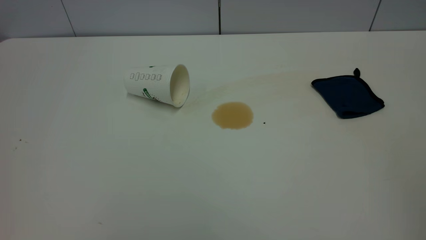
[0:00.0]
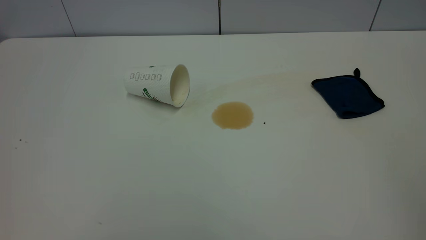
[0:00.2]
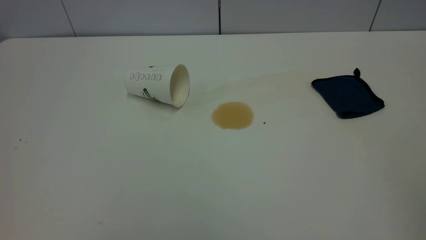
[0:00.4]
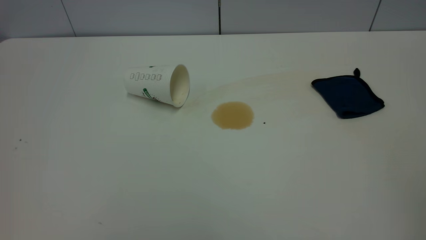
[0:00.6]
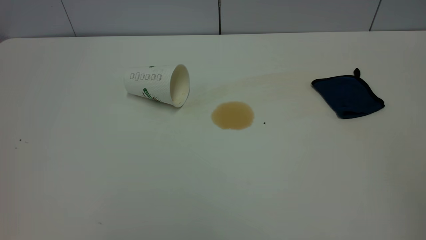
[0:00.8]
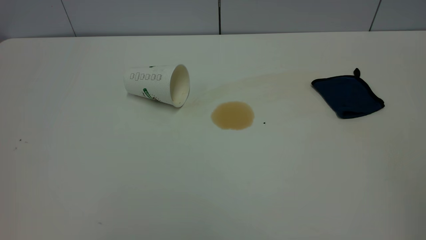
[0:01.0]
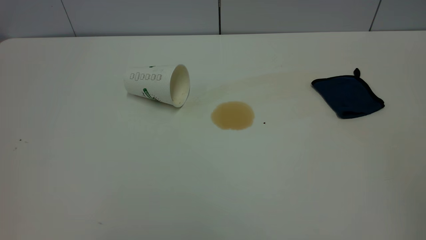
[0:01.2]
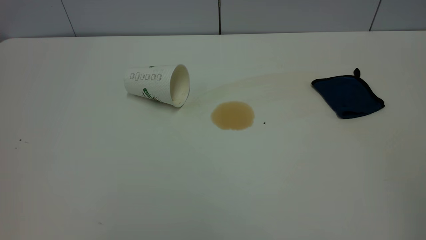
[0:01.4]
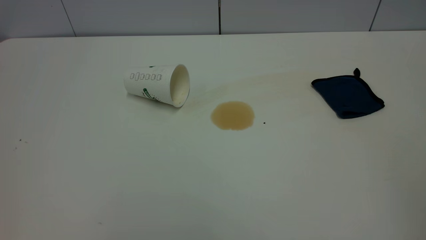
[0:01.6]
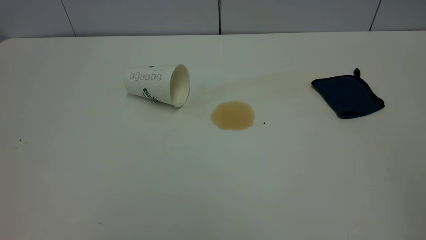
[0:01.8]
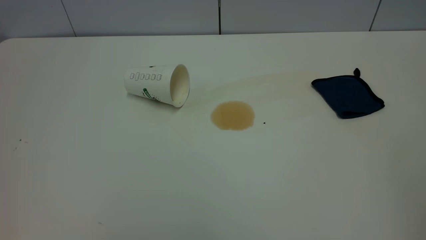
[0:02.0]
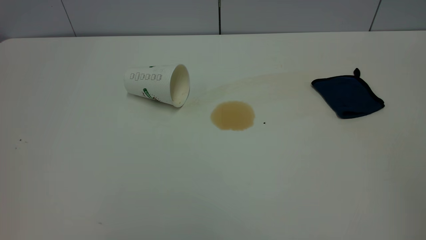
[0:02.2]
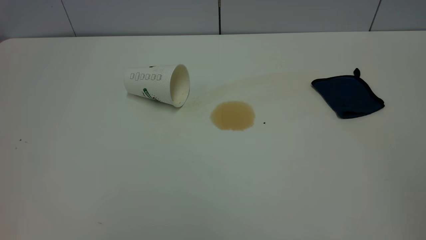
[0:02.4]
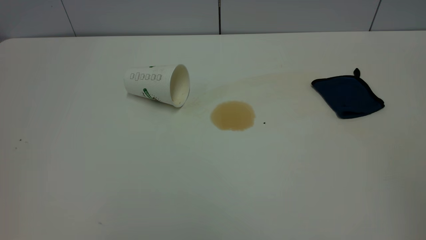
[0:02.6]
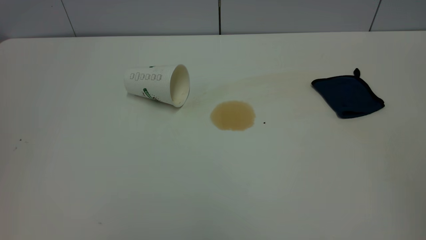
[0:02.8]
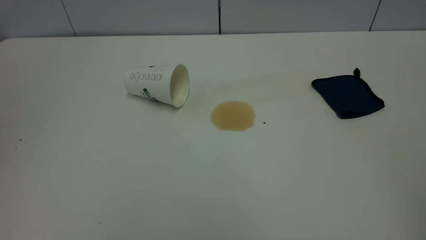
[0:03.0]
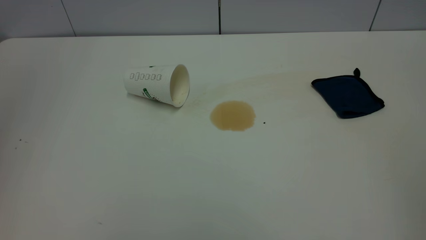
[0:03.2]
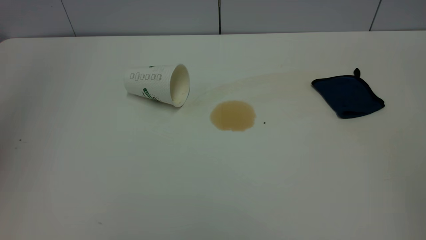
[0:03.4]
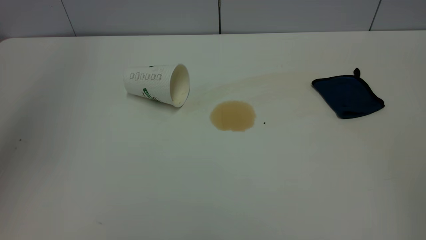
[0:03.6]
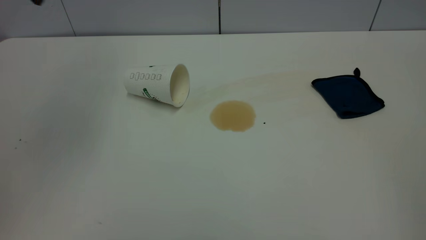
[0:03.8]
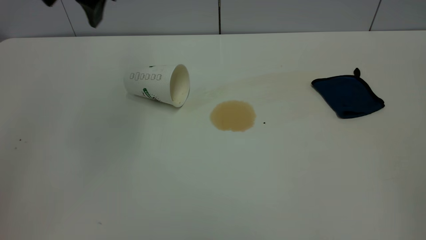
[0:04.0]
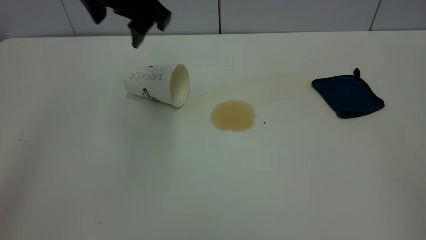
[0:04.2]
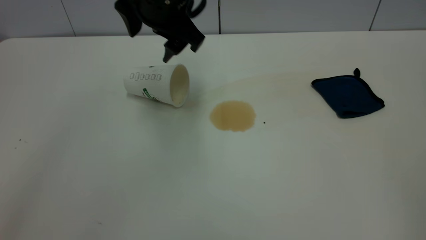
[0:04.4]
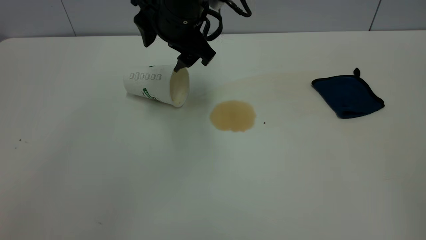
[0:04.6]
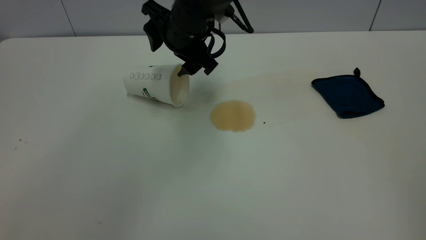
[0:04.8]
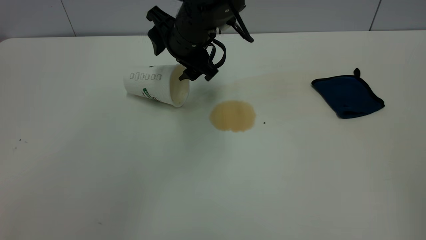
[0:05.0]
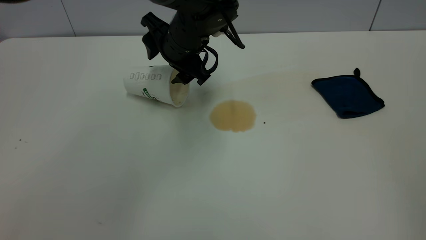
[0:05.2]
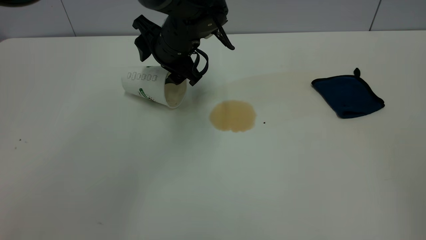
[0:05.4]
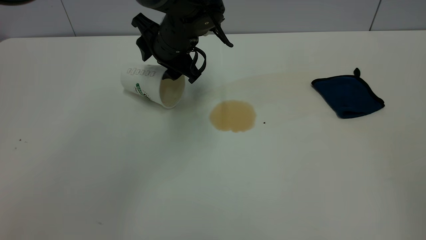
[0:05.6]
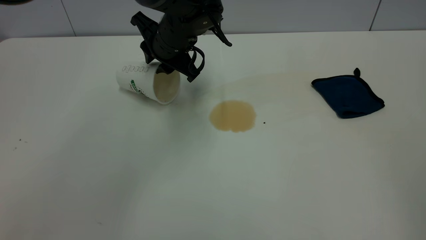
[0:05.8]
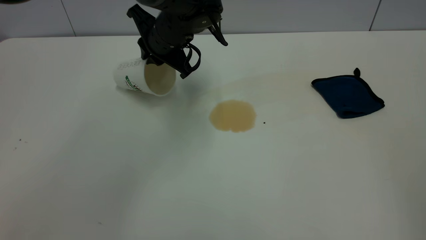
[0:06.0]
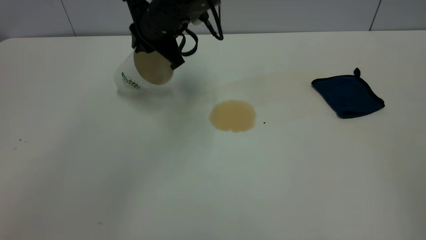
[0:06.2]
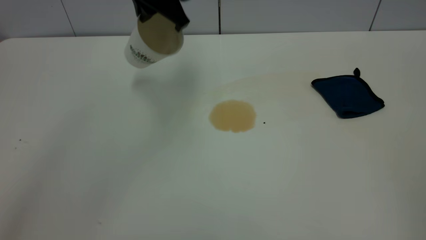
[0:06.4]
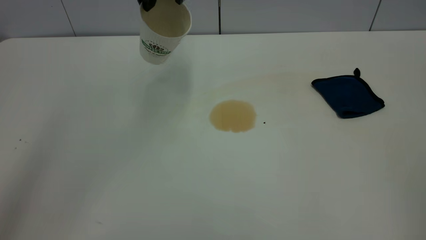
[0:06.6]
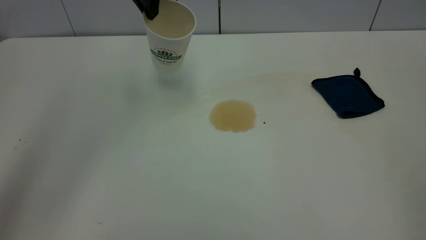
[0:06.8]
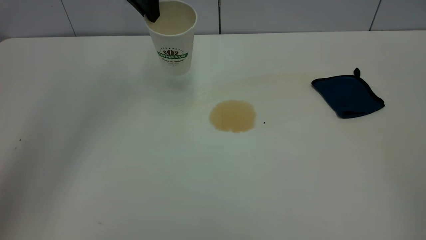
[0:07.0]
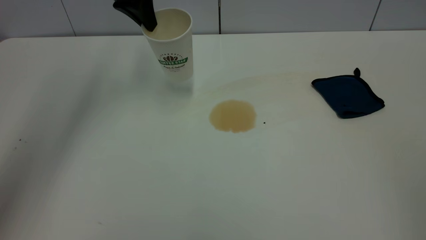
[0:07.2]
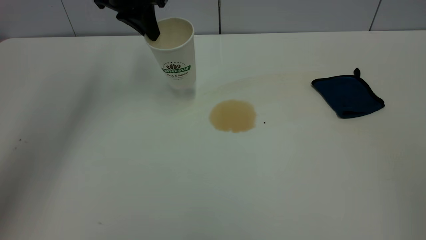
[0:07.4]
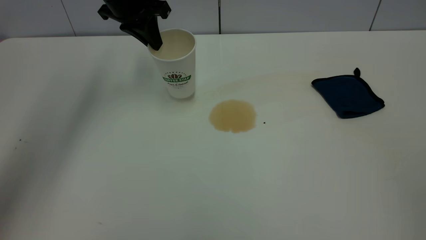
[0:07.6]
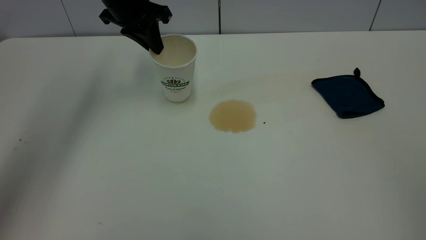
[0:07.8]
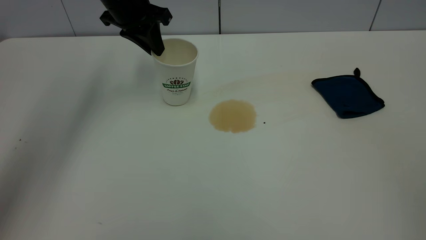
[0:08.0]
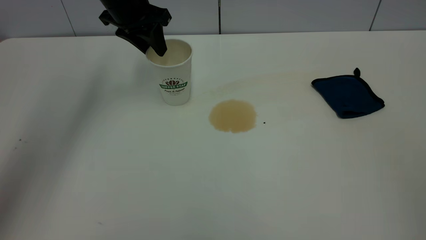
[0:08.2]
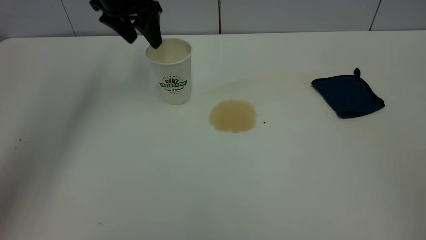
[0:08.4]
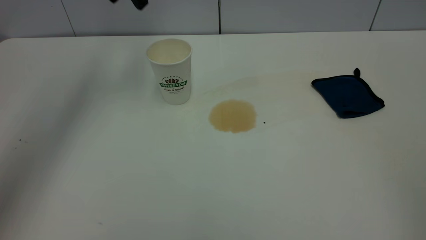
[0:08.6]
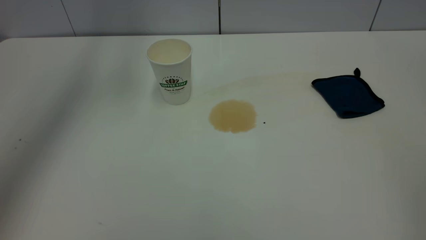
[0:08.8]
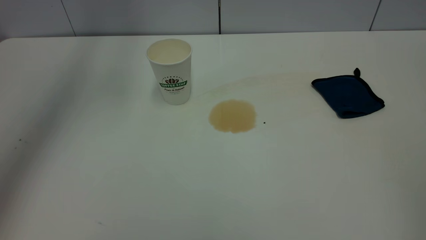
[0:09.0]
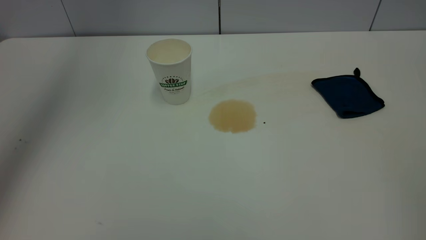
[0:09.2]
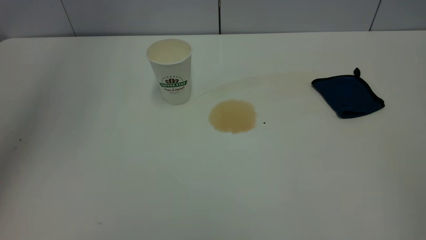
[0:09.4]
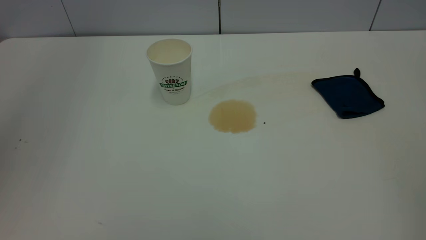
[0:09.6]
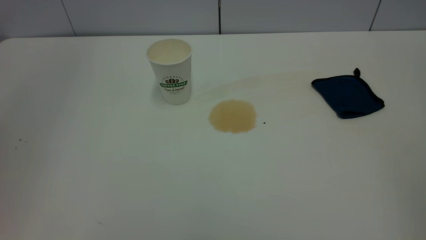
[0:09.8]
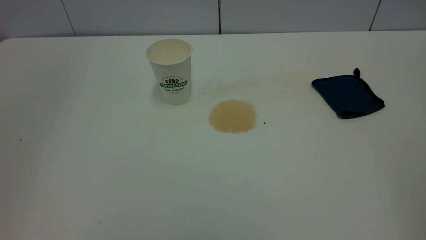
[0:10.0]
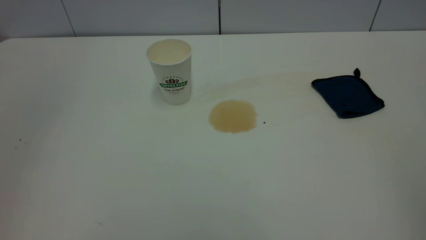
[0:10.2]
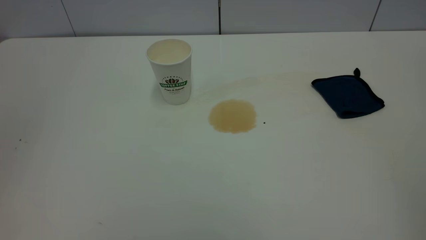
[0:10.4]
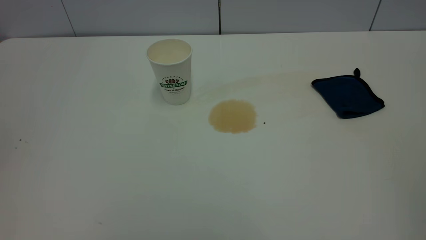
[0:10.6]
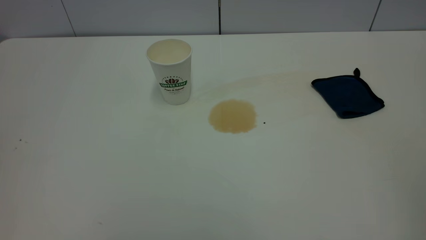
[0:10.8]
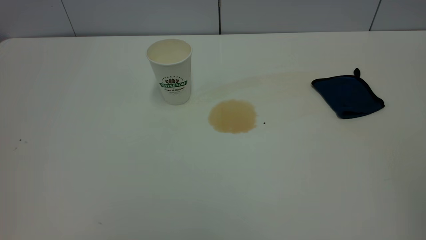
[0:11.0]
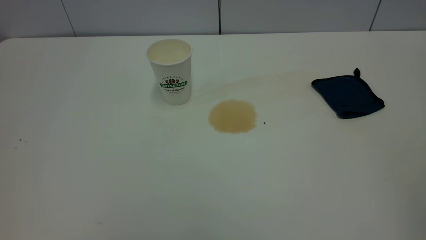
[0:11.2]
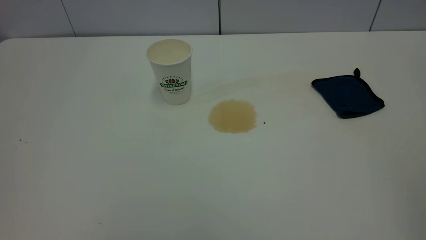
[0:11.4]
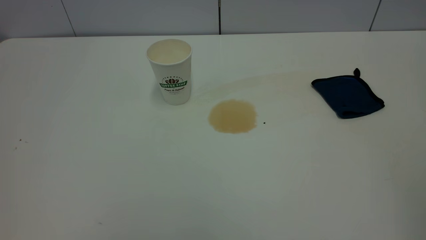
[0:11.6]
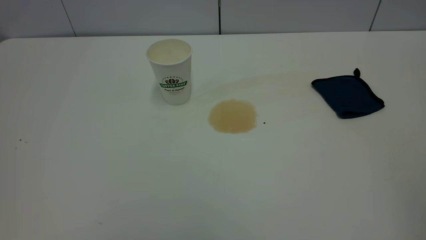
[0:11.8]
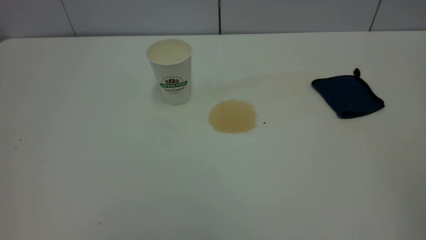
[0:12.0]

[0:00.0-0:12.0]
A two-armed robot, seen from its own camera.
Task of the whole recording: the left gripper pick up the fallen cup and place it upright, the right gripper grasp the blue rag and wipe the tea stain on the table, the right gripper put the blue rag back in its original position.
Step, 0:00.0 to 0:08.2: Stand the paper cup upright.
0:00.0 to 0:01.6: Both grippers stay put.
0:03.0 to 0:04.4: The left gripper shifts approximately 40 cm to the right, forward and downward.
0:04.4 to 0:06.0: The left gripper shifts roughly 10 cm downward and forward, and closes.
0:06.0 to 0:07.6: The left gripper heads to the left and upward, covering approximately 10 cm.
0:07.6 to 0:09.0: The left gripper travels upward by some 25 cm, and opens.
0:09.0 to 0:10.4: The left gripper shifts about 30 cm backward.

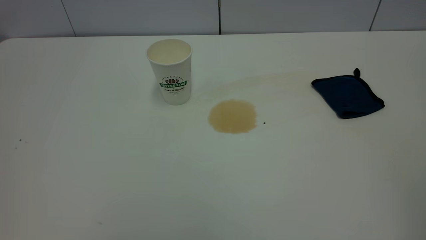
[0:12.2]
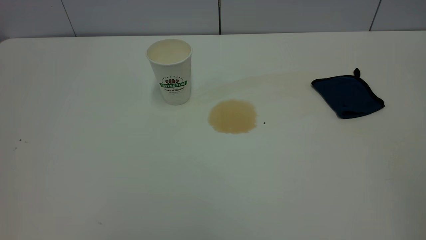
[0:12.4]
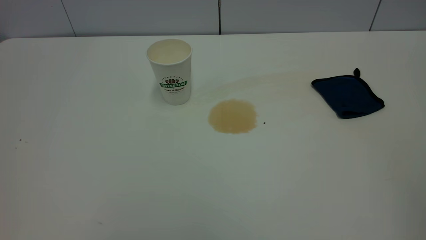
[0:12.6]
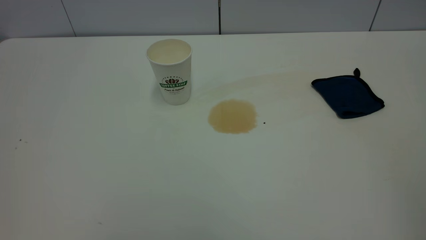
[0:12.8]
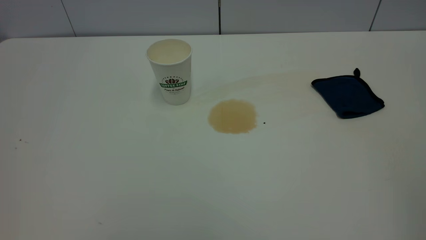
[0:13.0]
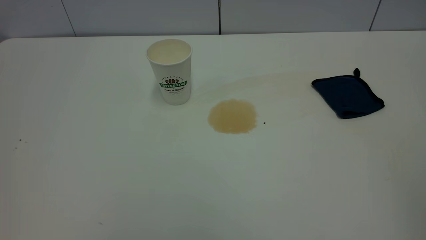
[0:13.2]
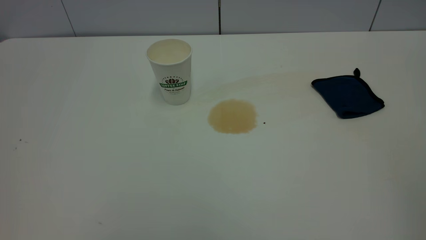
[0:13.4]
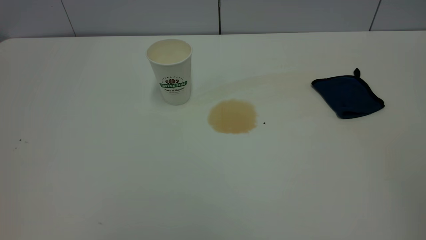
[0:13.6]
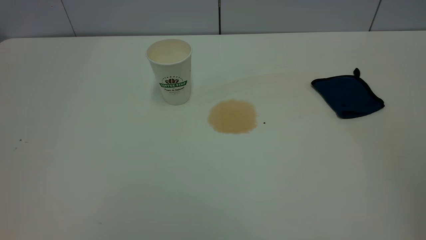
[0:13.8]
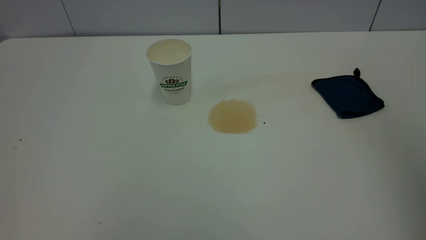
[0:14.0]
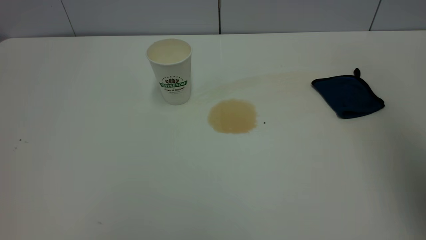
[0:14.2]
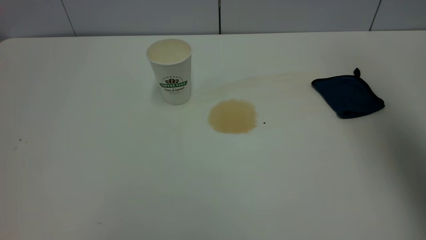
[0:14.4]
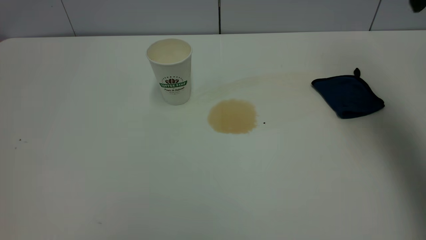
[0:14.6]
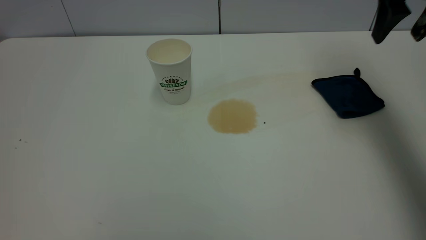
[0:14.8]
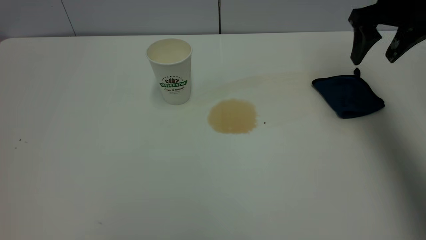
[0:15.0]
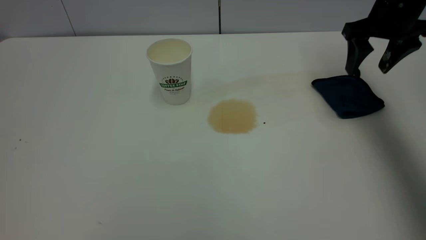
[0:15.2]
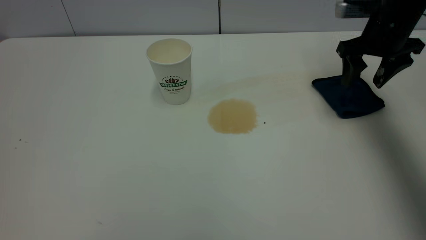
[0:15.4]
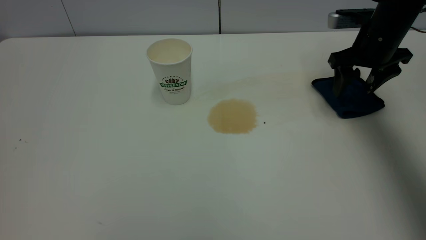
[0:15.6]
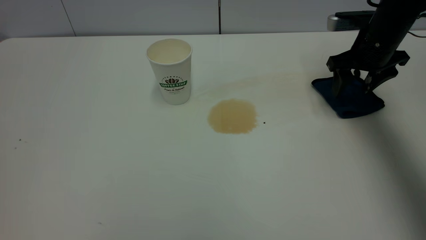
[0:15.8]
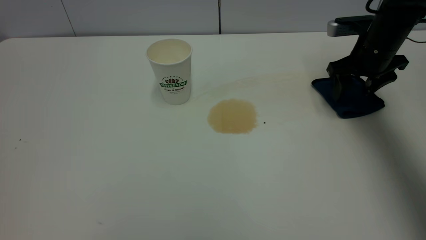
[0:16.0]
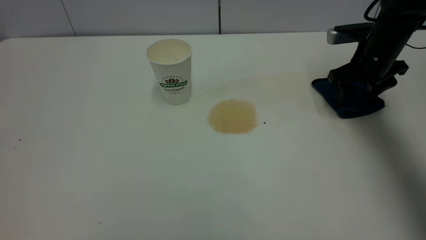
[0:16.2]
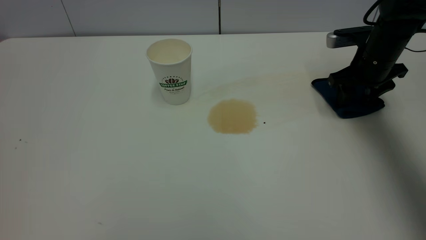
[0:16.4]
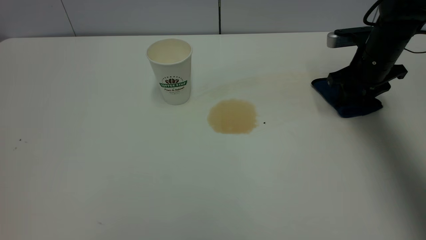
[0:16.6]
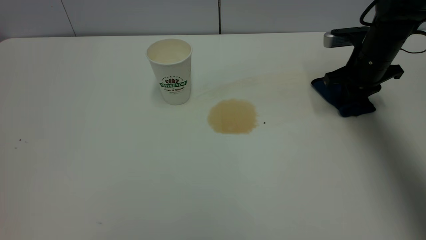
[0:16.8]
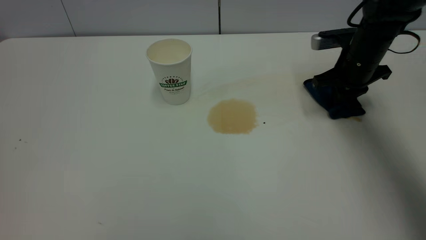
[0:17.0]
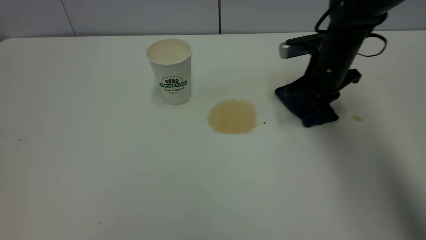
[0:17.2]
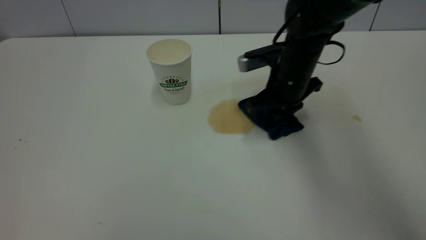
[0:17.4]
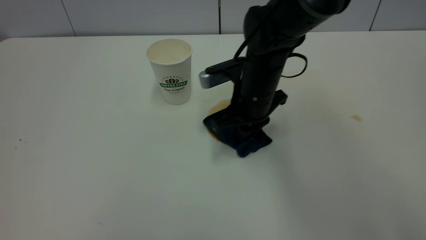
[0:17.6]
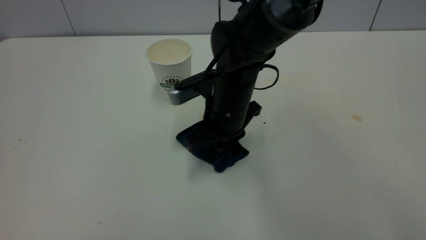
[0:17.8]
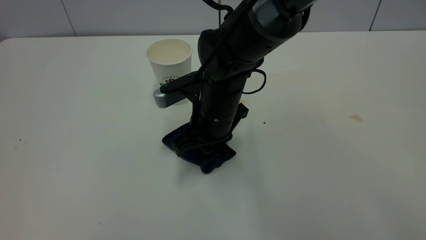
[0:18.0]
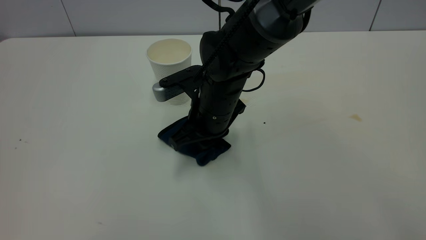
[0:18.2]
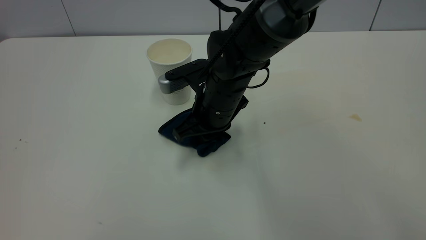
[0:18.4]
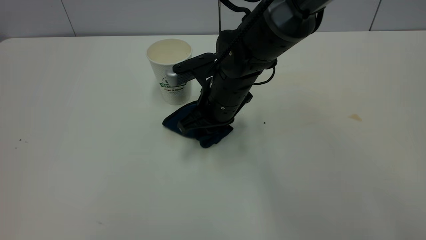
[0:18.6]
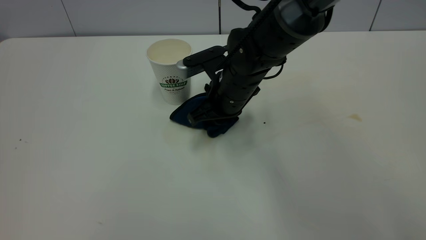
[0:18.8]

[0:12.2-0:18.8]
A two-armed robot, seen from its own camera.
Task of the whole recording: the left gripper pick up the fallen cup and place it upright, the right gripper grasp the blue rag and wipe the tea stain on the table, the right gripper put the blue rag back in its original position.
0:13.8 to 0:15.4: The right gripper moves forward and downward, approximately 50 cm.
0:15.4 to 0:17.2: The right gripper travels to the left and downward by approximately 10 cm, and closes its fingers.
0:17.2 to 0:18.8: The right gripper heads to the left, covering roughly 15 cm.
